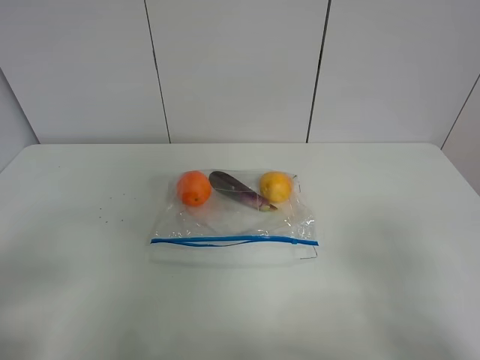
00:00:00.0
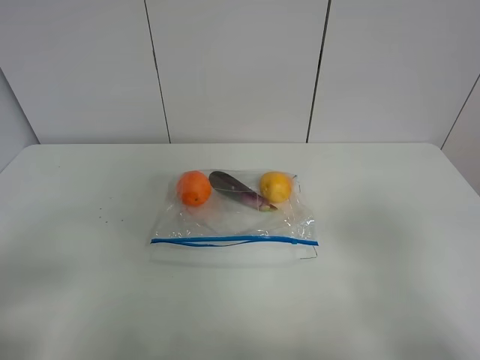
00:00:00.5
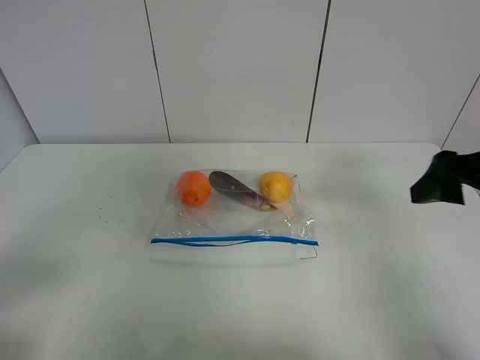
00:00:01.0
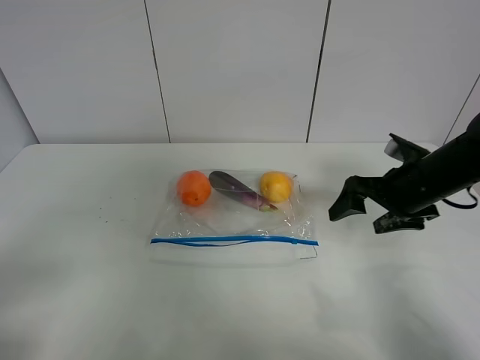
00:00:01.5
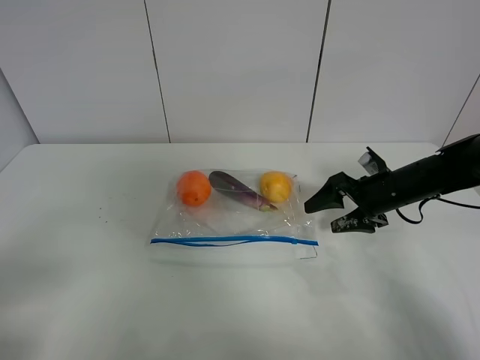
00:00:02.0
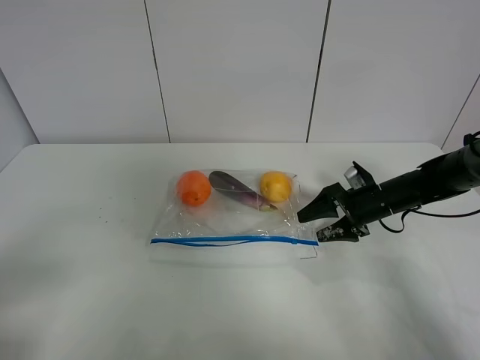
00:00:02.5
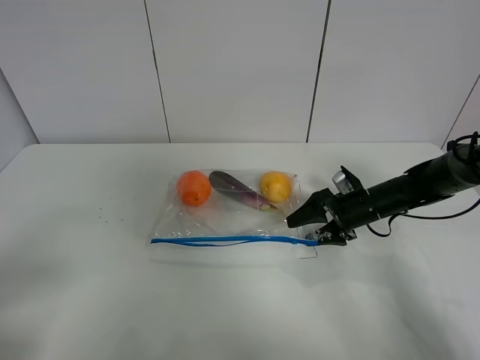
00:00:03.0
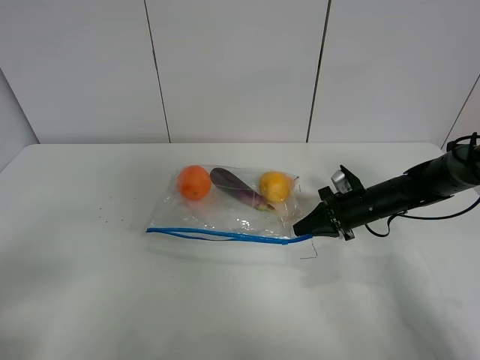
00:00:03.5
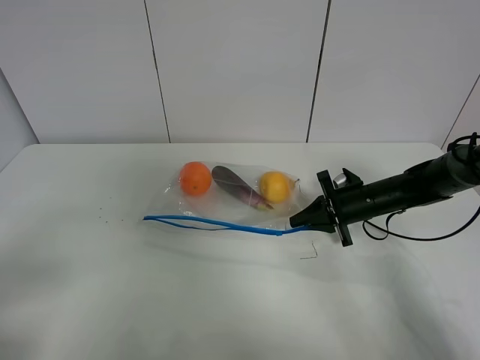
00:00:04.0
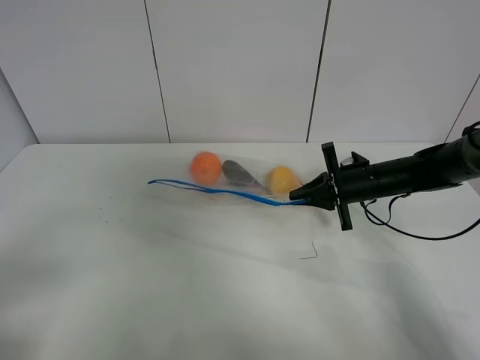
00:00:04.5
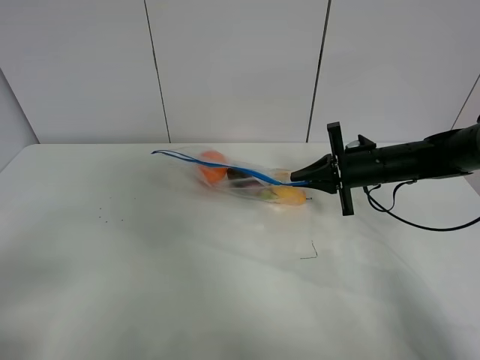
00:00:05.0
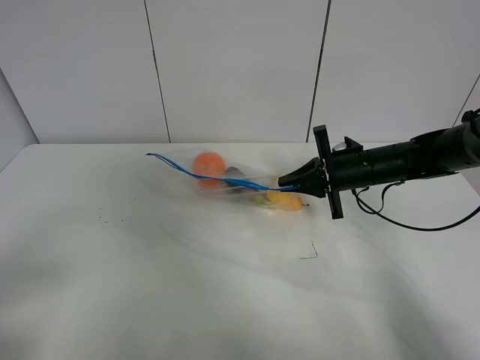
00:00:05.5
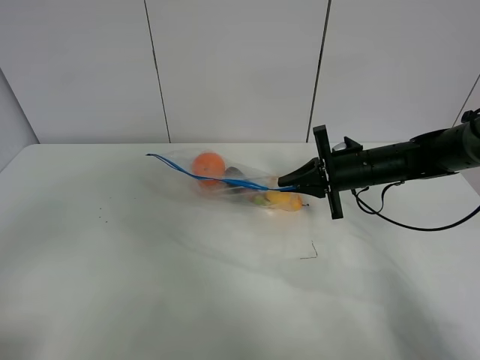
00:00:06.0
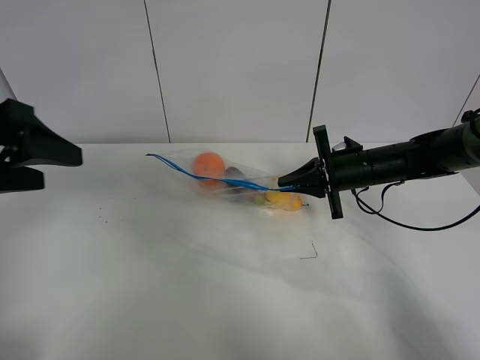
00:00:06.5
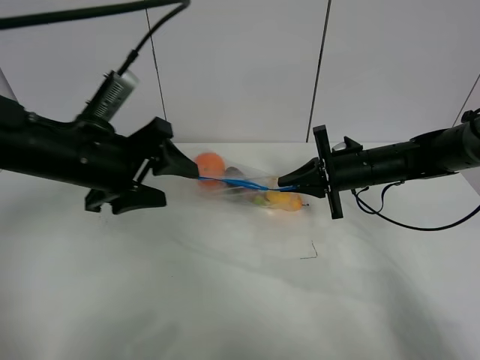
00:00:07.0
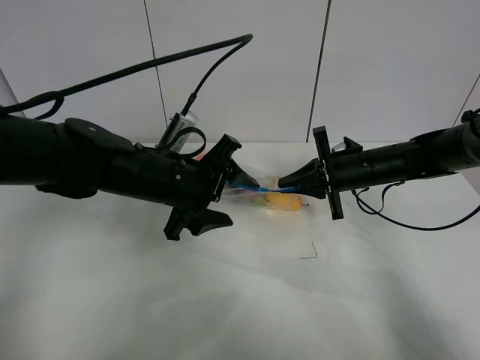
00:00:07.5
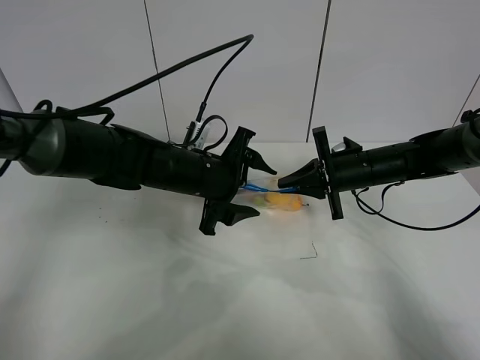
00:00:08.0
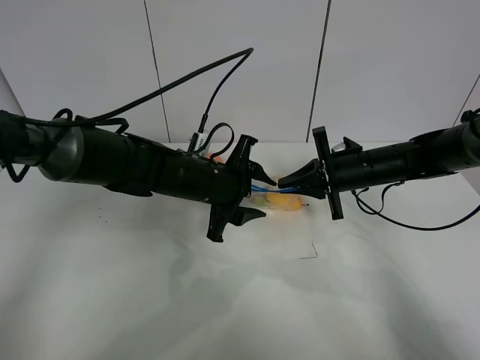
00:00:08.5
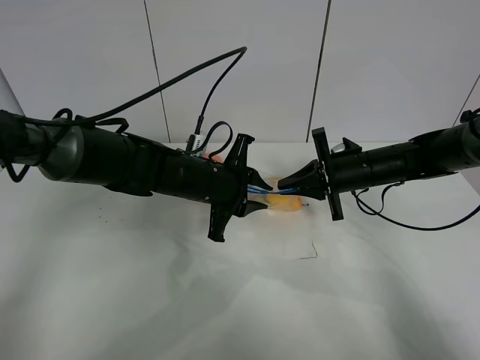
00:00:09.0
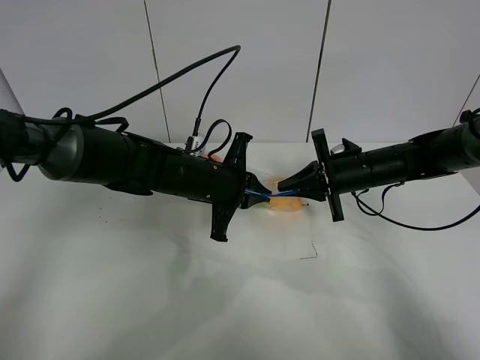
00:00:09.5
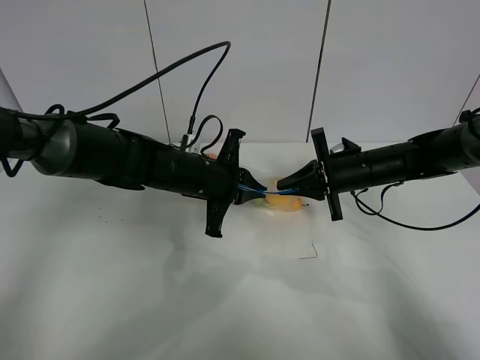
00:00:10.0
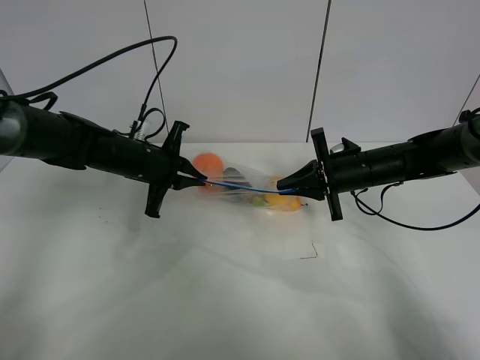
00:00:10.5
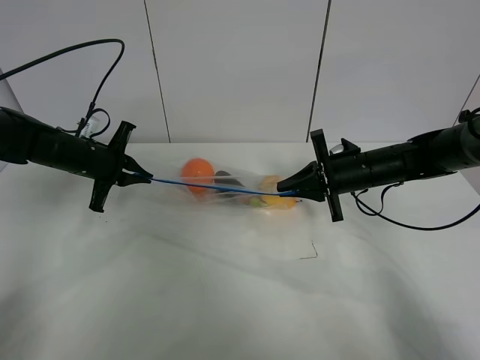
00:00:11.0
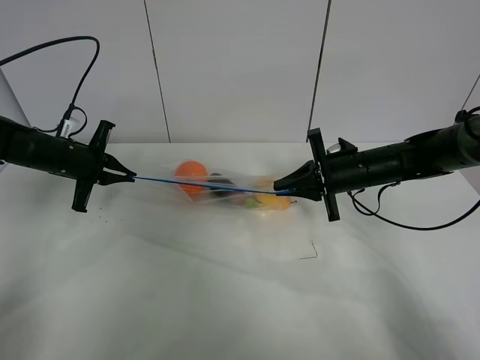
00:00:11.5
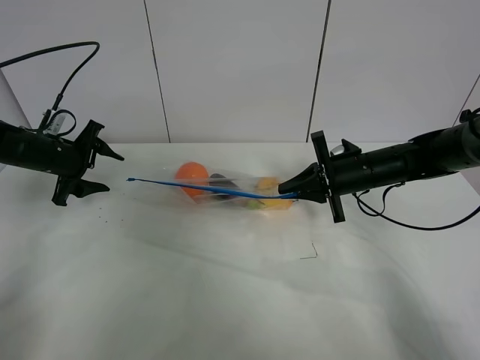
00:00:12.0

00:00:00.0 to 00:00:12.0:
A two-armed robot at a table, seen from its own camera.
Step, 00:00:00.0 to 00:00:03.5: Grasp the fruit bag with right gripper.
Step, 00:00:04.0 to 00:00:05.0: Lift the fruit bag with your right gripper.
Step, 00:00:05.5 to 00:00:11.5: Pull the fruit bag with left gripper.
00:00:00.0 to 00:00:02.0: The right gripper heads forward and downward, covering roughly 40 cm.
00:00:02.0 to 00:00:04.0: The right gripper moves roughly 5 cm, and closes its fingers.
00:00:04.0 to 00:00:06.0: The grippers both shift upward by some 5 cm.
00:00:06.0 to 00:00:08.0: The left gripper heads forward, to the right and downward, covering approximately 40 cm.
00:00:08.0 to 00:00:10.0: The left gripper closes up.
00:00:10.0 to 00:00:12.0: The left gripper is displaced to the left by roughly 25 cm, and opens its fingers.

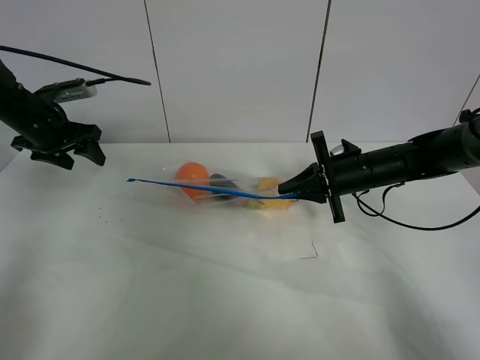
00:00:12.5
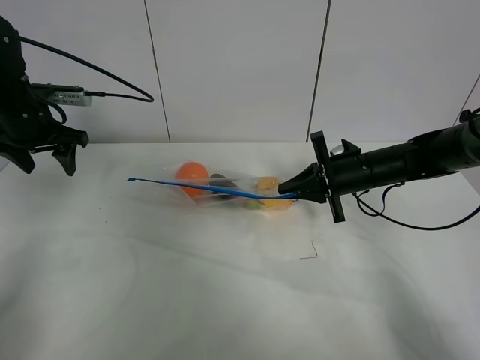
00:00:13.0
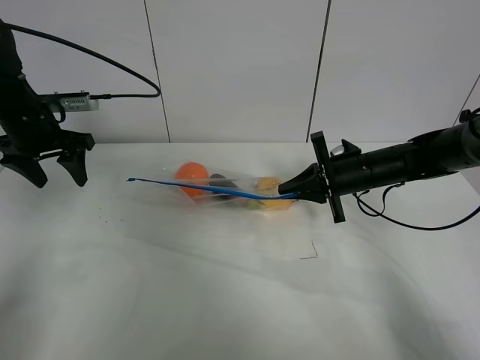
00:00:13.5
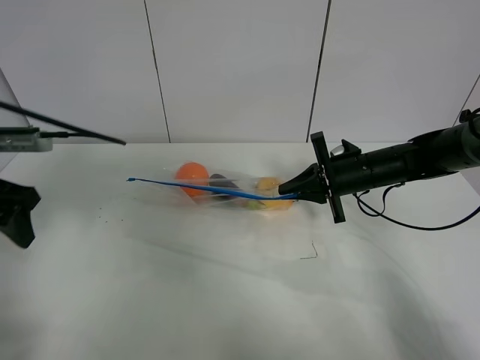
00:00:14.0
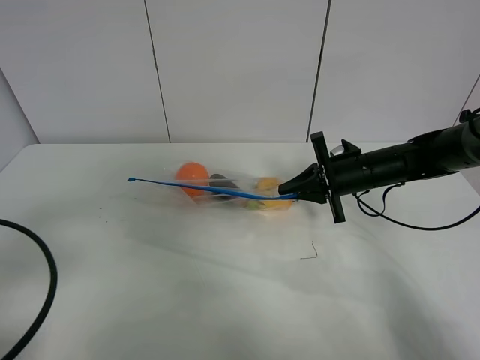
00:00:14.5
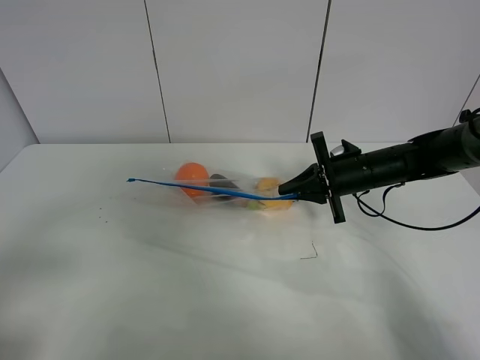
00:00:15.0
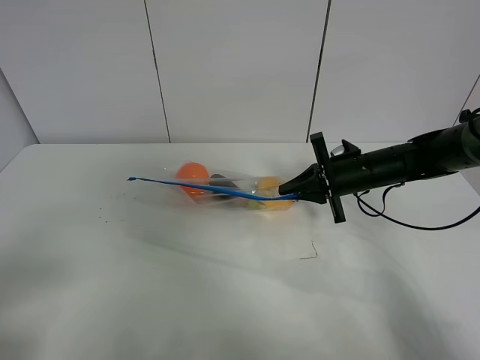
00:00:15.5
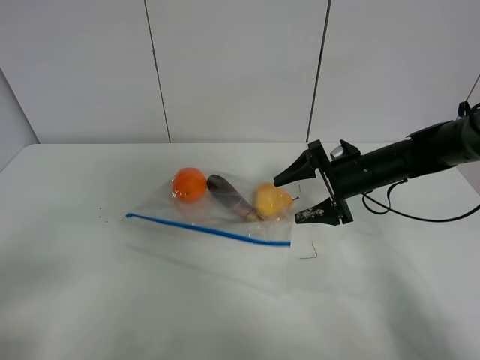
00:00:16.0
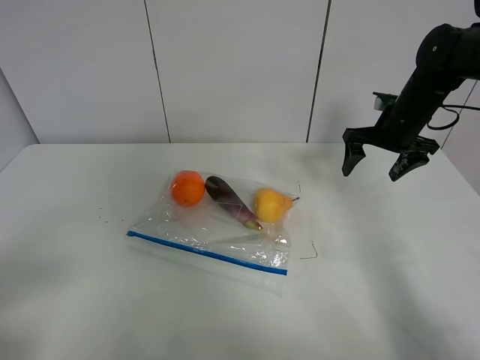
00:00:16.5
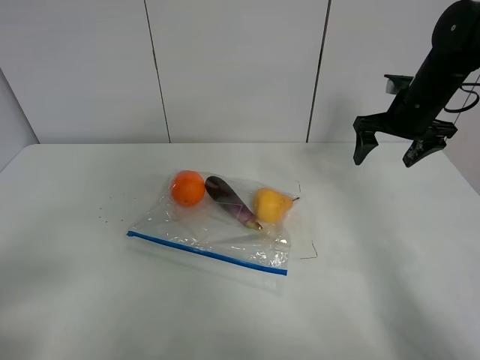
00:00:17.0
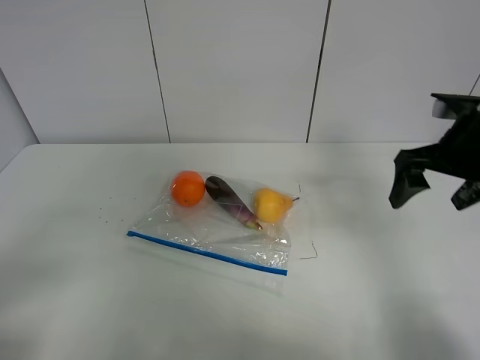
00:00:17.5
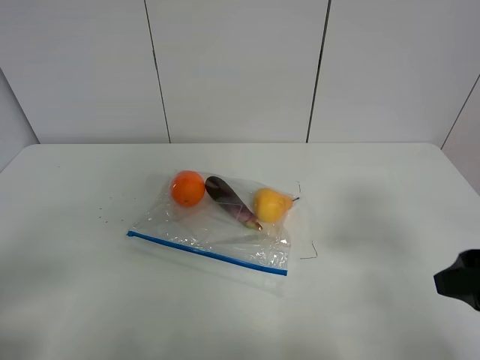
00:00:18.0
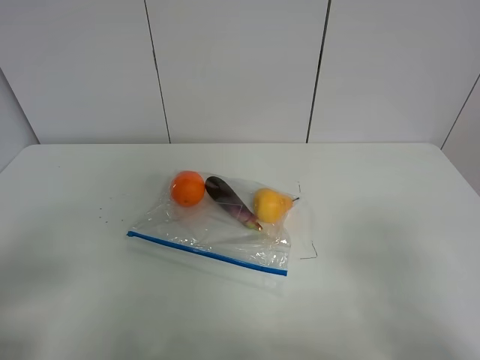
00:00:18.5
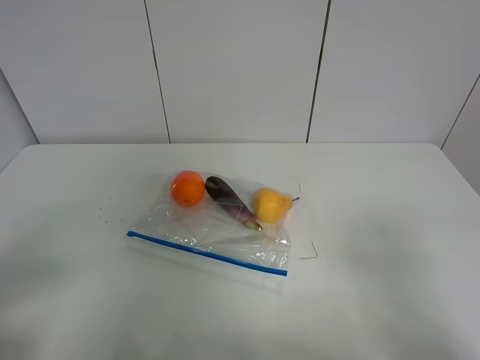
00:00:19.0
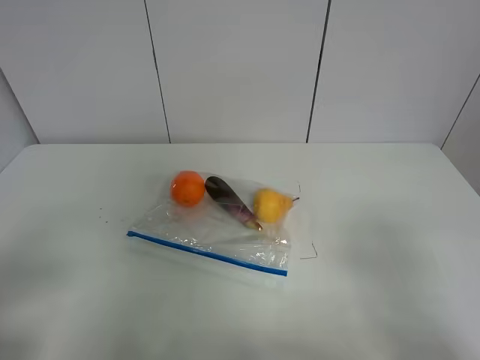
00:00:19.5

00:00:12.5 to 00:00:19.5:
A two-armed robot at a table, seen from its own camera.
00:00:12.5 to 00:00:14.5: The left gripper moves backward, about 30 cm.
00:00:14.5 to 00:00:16.0: The left gripper is displaced backward by some 10 cm; the right gripper opens its fingers.
00:00:16.0 to 00:00:17.5: The right gripper moves upward, backward and to the right, about 20 cm.
00:00:17.5 to 00:00:19.5: The right gripper is displaced backward by approximately 25 cm.

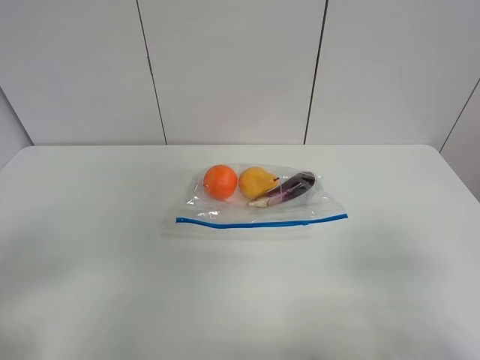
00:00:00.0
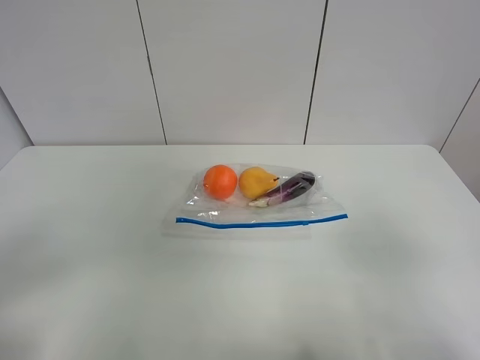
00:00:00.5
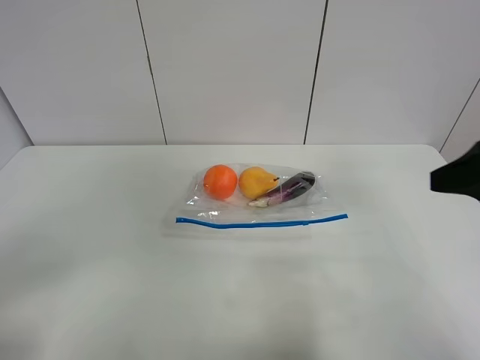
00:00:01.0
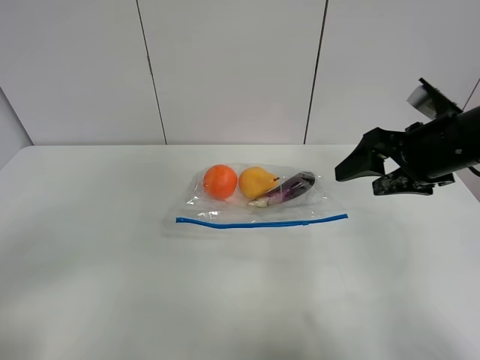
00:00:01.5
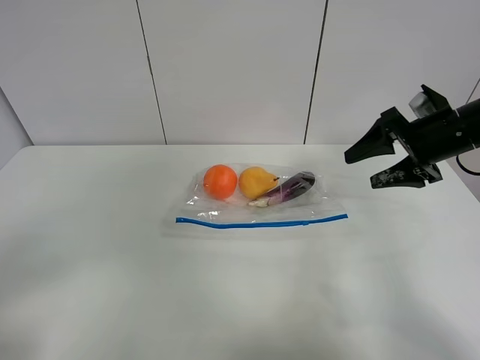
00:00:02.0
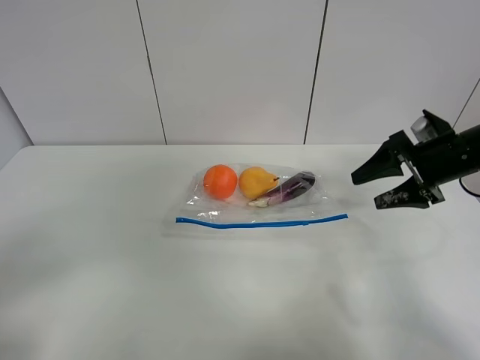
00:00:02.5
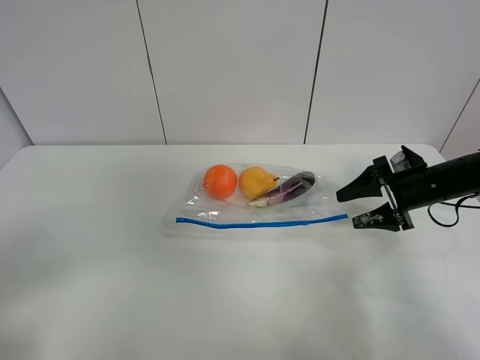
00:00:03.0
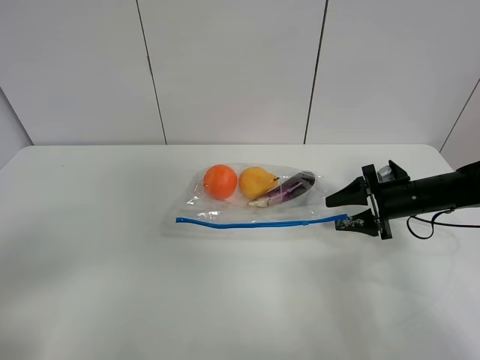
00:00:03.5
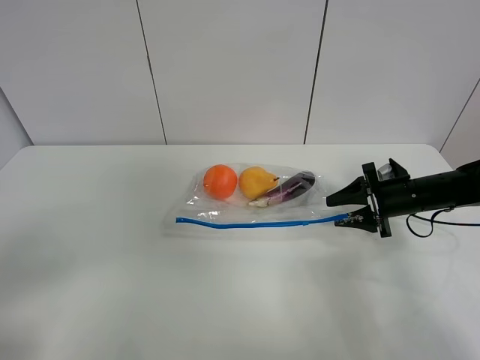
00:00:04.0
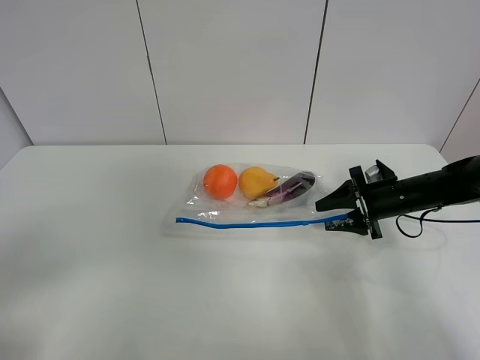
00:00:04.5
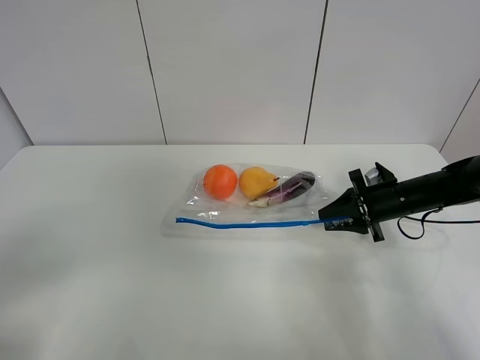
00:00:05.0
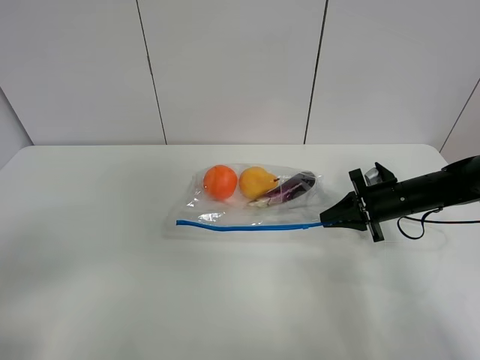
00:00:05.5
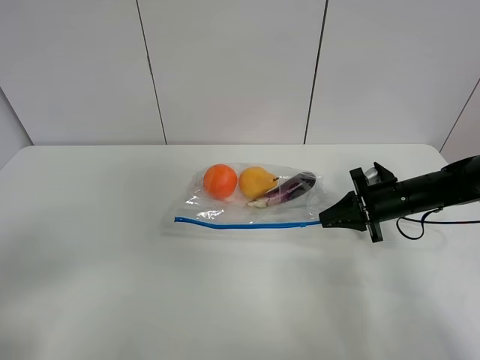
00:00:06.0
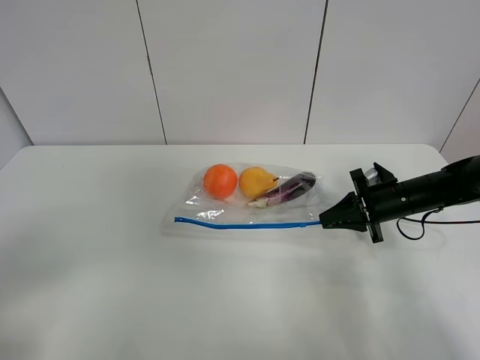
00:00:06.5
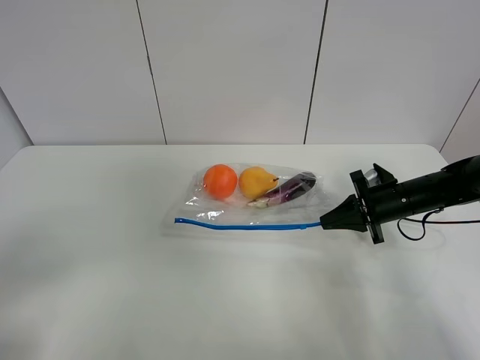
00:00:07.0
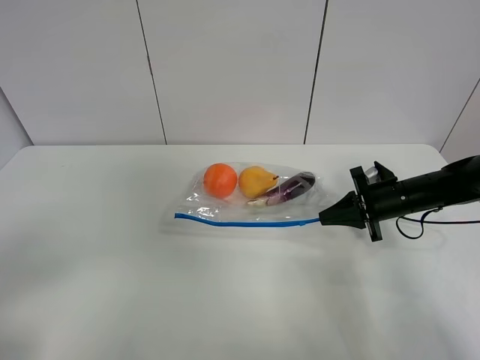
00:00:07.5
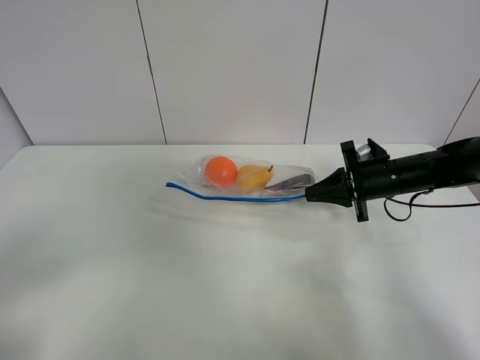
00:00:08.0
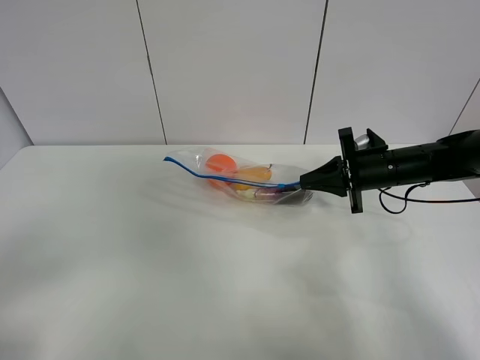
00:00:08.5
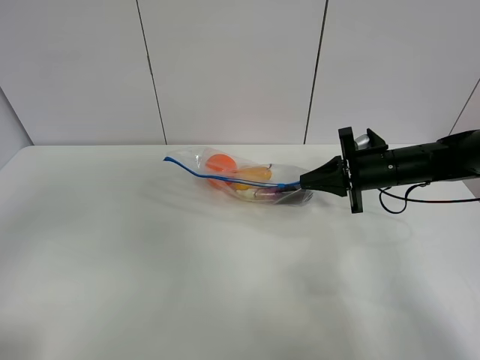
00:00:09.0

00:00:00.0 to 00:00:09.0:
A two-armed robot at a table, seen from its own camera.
Step, 00:00:00.0 to 00:00:06.5: Grasp the fruit bag with right gripper.
Step, 00:00:07.0 to 00:00:08.5: Lift the fruit bag with your right gripper.
00:00:00.0 to 00:00:02.0: The right gripper goes some 35 cm forward.
00:00:02.0 to 00:00:04.5: The right gripper goes roughly 15 cm downward.
00:00:04.5 to 00:00:07.0: The right gripper closes up.
00:00:07.0 to 00:00:09.0: The left gripper goes roughly 10 cm upward and forward. The right gripper heads upward, covering about 5 cm.
